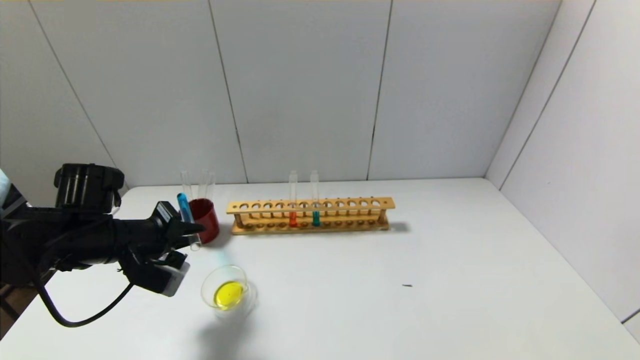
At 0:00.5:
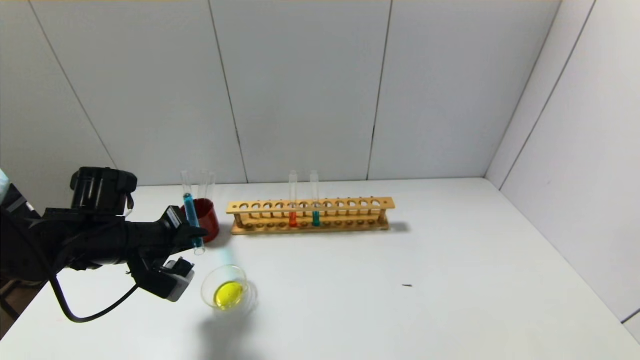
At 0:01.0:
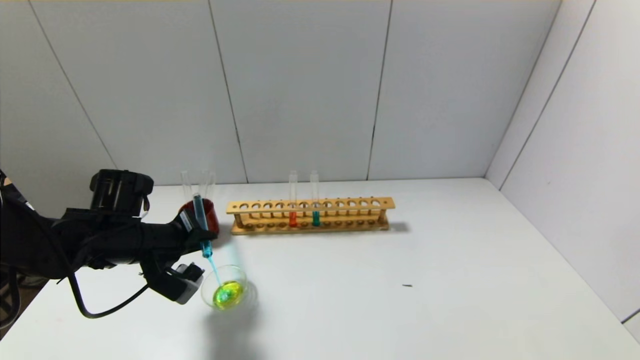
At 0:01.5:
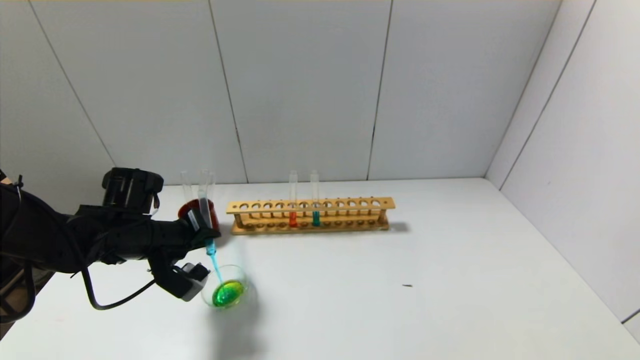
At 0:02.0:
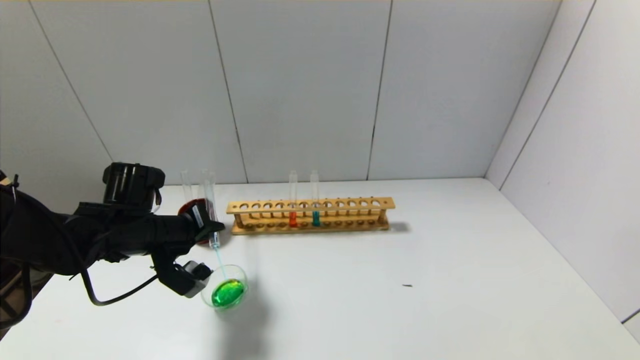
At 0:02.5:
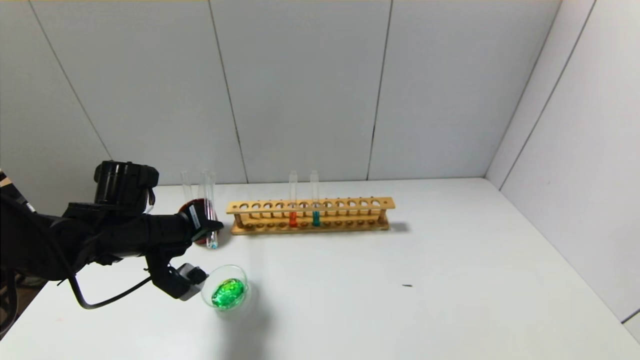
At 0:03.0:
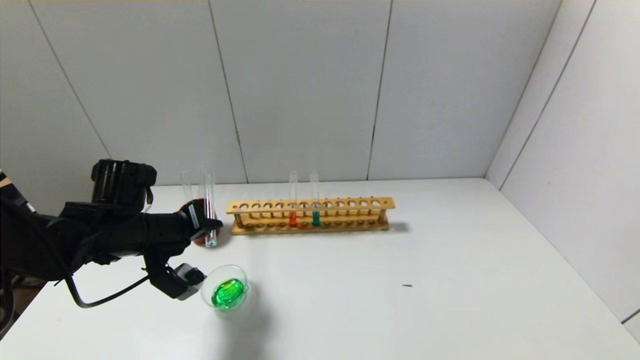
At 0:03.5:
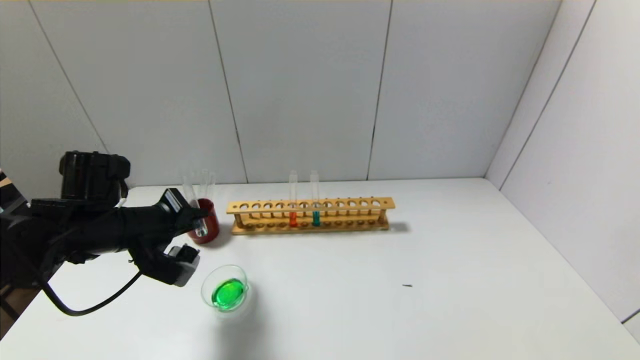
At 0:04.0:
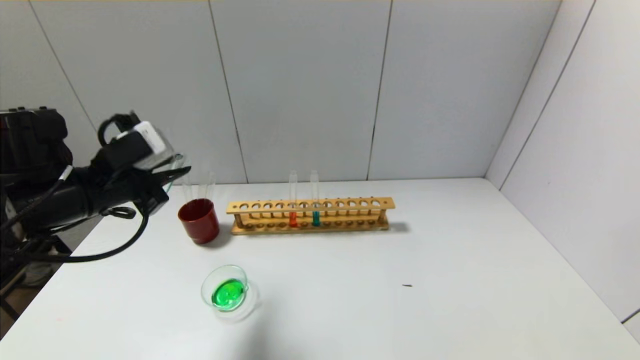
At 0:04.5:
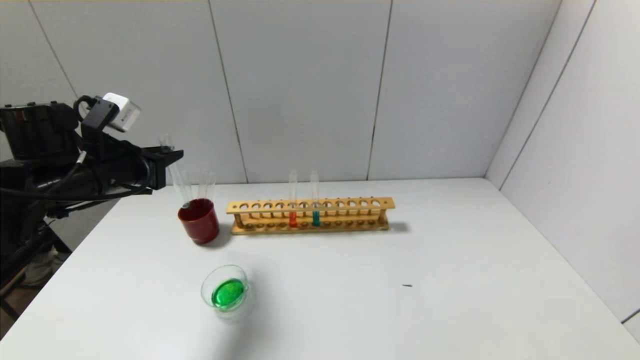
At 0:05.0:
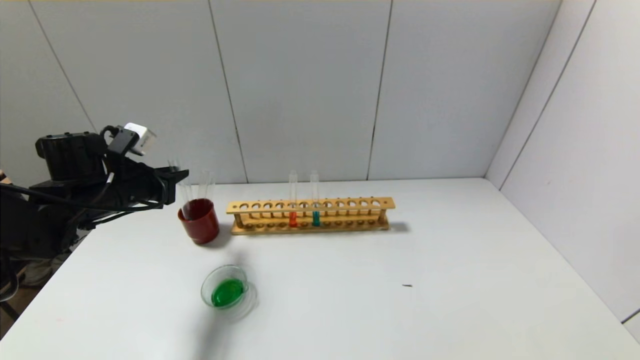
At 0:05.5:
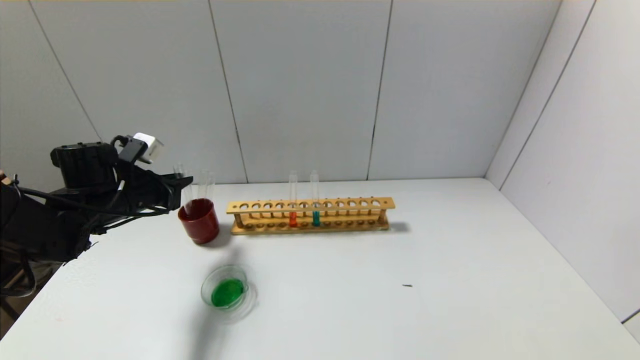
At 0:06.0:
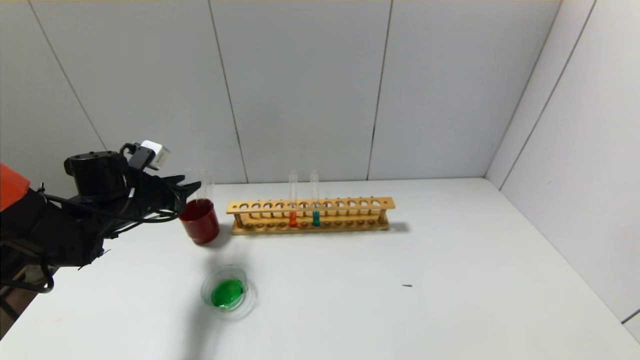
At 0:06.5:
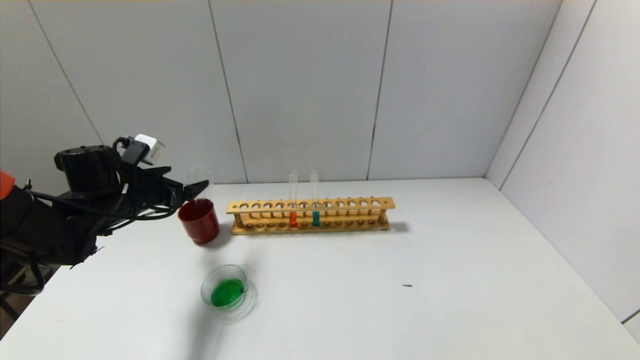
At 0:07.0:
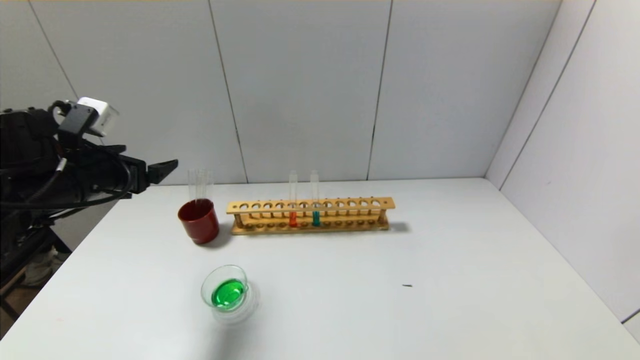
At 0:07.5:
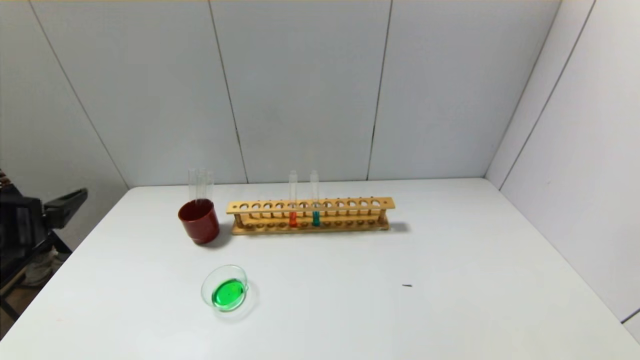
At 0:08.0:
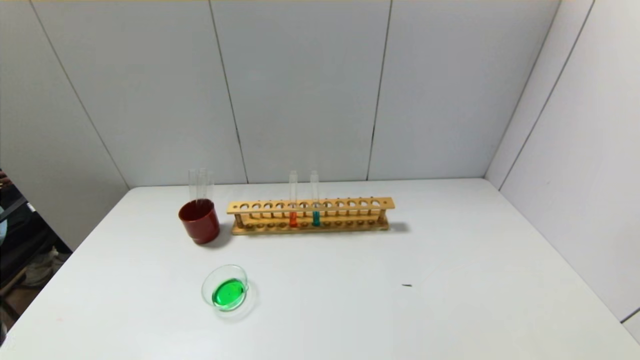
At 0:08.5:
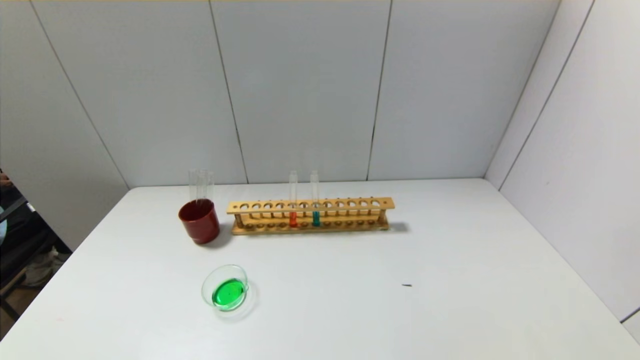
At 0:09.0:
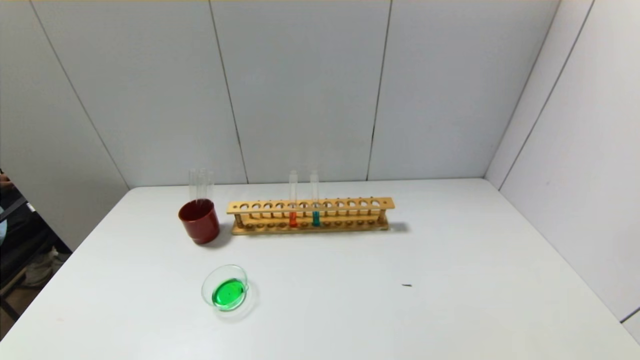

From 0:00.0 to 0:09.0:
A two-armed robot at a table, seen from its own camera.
Step, from 0:00.0 to 0:03.5: Pour the blue reagent into the graduated cylinder with the left gripper.
Step, from 0:04.0 to 0:05.5: Place the test tube into the brown cup with the left gripper.
From 0:02.0 to 0:04.5: The left gripper goes approximately 10 cm upward.
From 0:04.5 to 0:07.0: The left gripper goes downward and returns, some 10 cm each way, and opens its fingers.
From 0:07.0 to 0:09.0: The left gripper shifts roughly 35 cm backward and downward.
